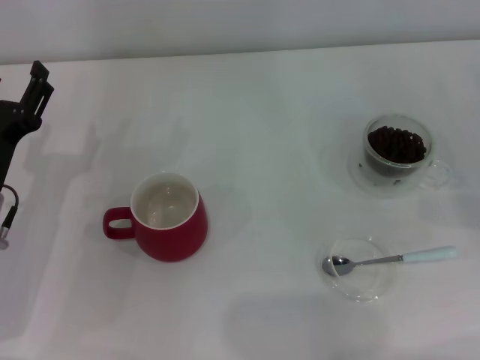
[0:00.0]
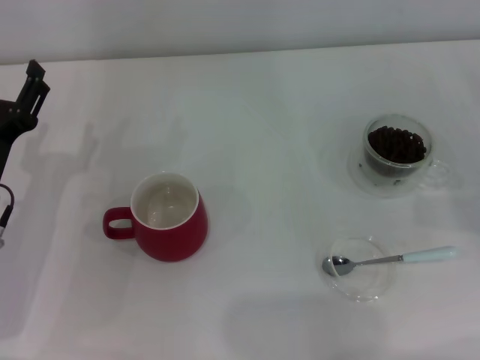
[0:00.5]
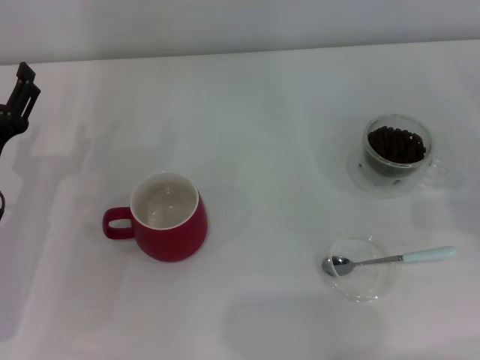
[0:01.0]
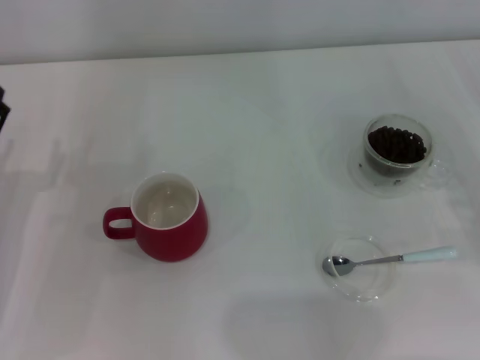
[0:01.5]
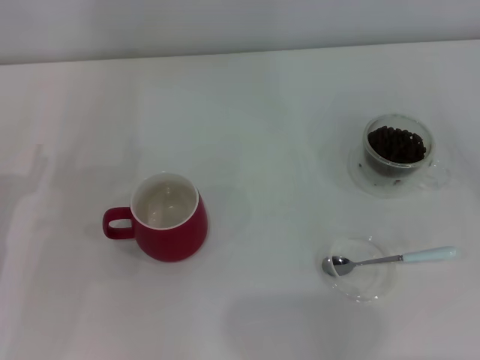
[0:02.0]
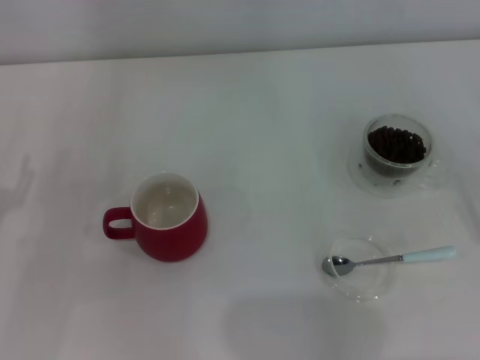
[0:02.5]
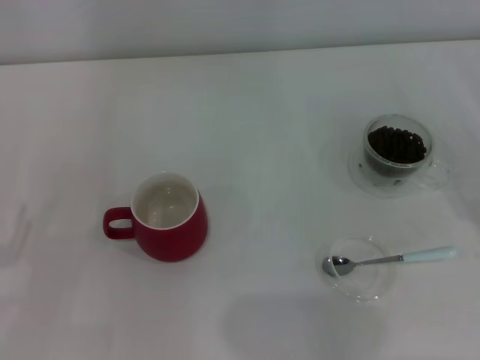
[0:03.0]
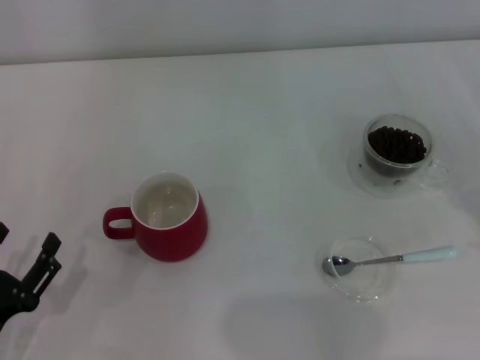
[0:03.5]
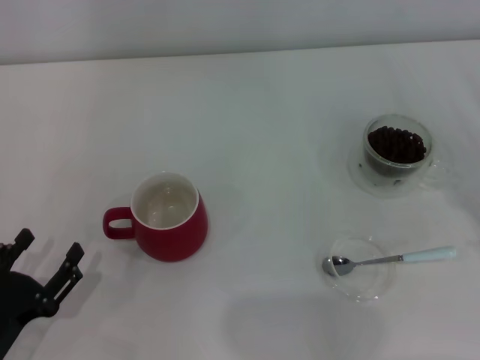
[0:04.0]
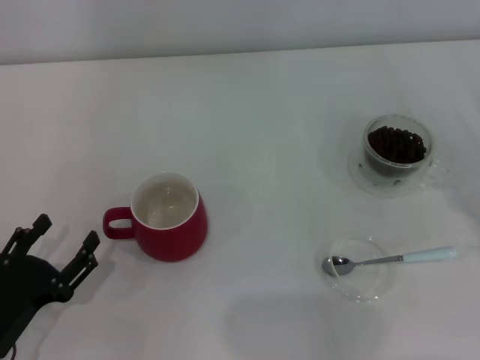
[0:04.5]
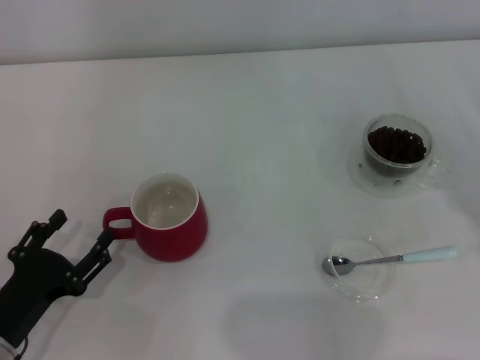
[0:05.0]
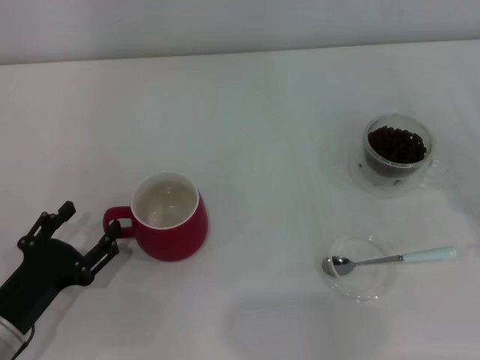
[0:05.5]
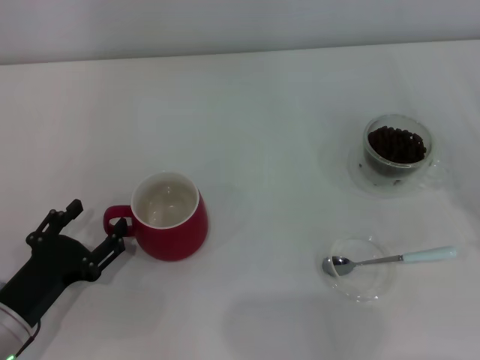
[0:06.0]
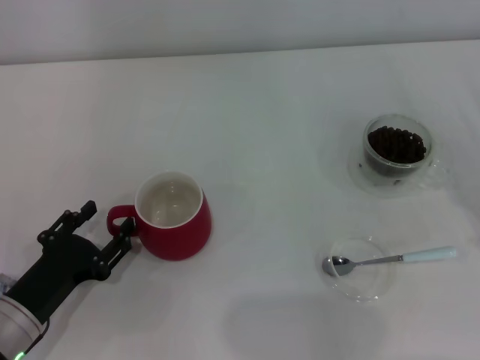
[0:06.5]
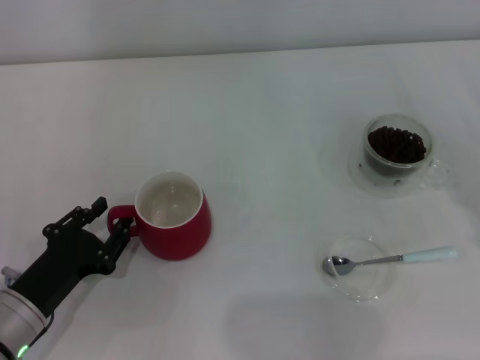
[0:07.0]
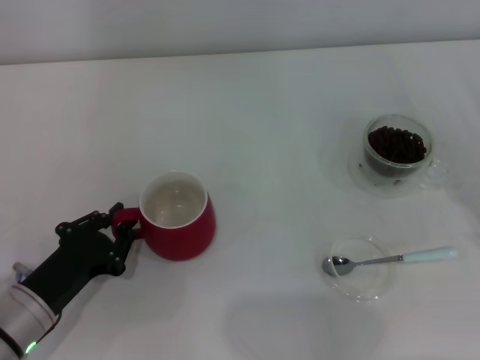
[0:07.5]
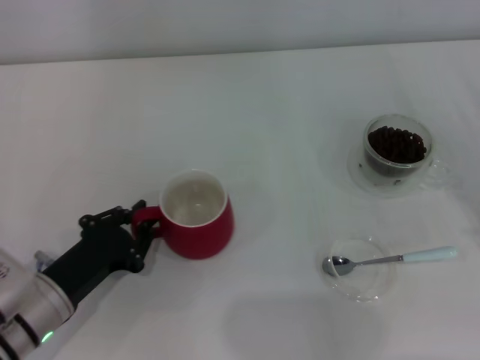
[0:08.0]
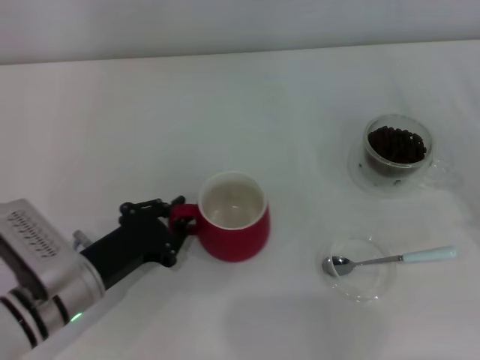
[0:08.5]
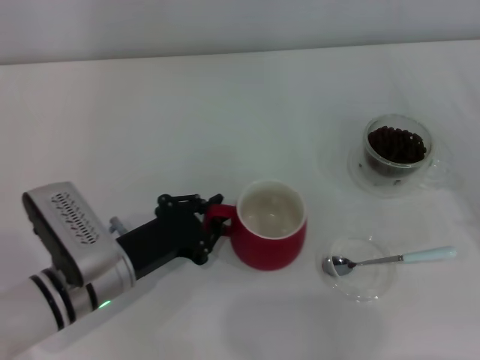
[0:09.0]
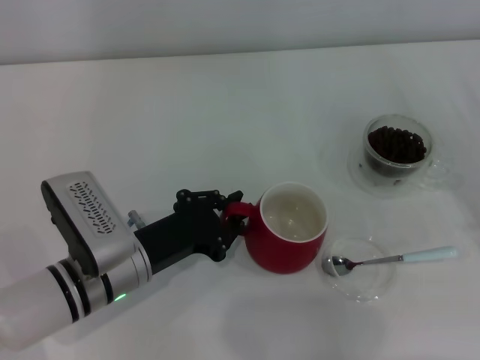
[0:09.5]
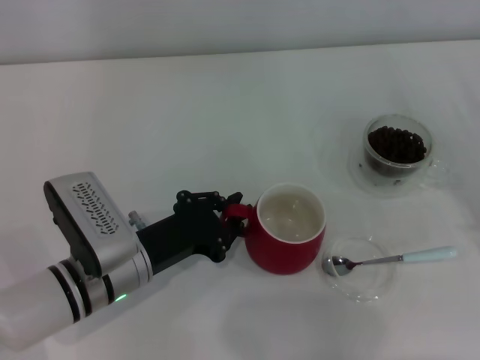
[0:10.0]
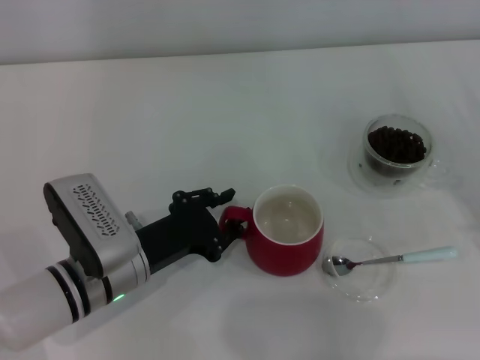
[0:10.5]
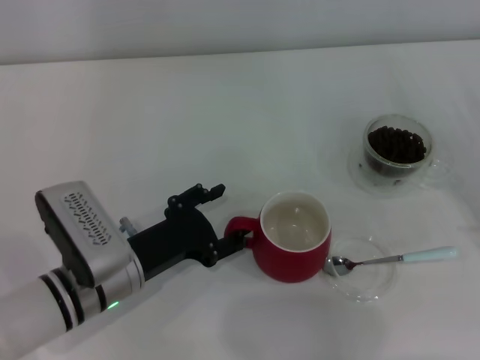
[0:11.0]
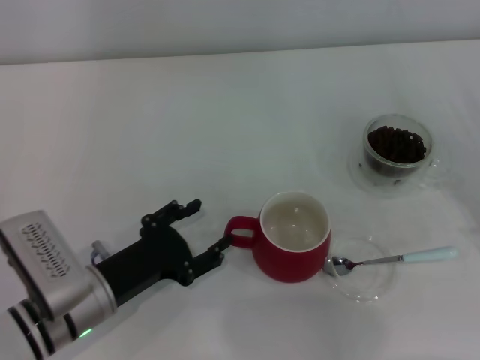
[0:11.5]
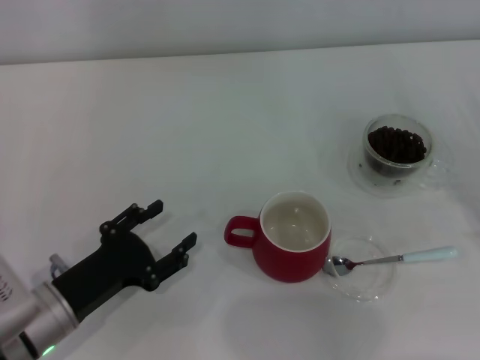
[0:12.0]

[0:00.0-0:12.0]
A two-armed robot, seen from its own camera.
Task of the whole recording: Use a blue spoon to take out the coffee beans from the glass and pour them into the red cup.
Step, 0.0 to 11.5 s: Move the cup to the center of view with the left gripper.
0.0 to 2.0 s: The left gripper is displaced to the left by about 5 cm.
2.0 to 4.0 s: The left gripper goes about 15 cm backward and downward.
4.0 to 6.0 s: The left gripper is displaced forward by approximately 5 cm.
6.0 to 8.0 s: The left gripper closes up.
8.0 to 10.0 s: The left gripper heads to the right, covering approximately 10 cm.
10.0 to 12.0 s: The left gripper heads to the left, covering approximately 5 cm, and opens.

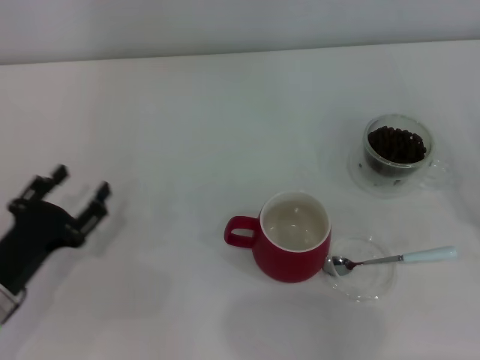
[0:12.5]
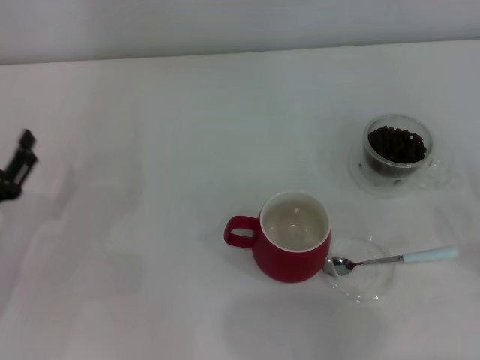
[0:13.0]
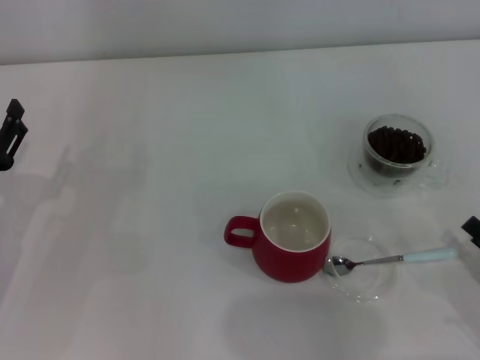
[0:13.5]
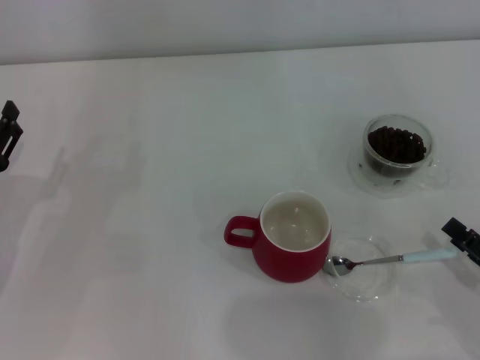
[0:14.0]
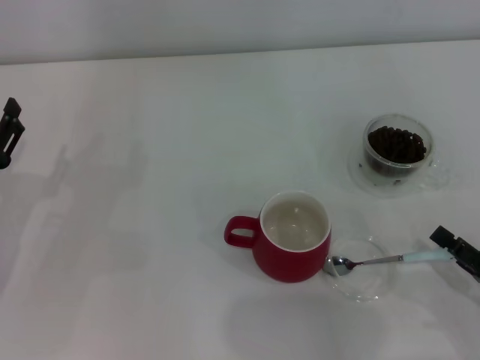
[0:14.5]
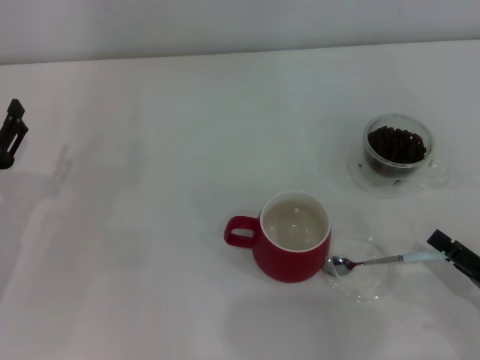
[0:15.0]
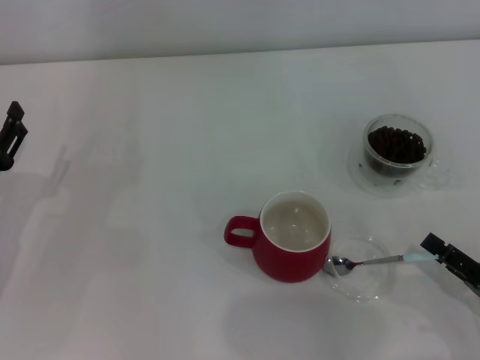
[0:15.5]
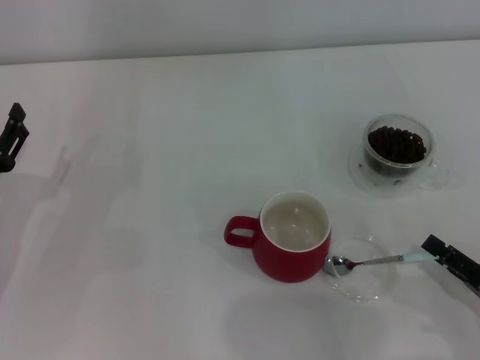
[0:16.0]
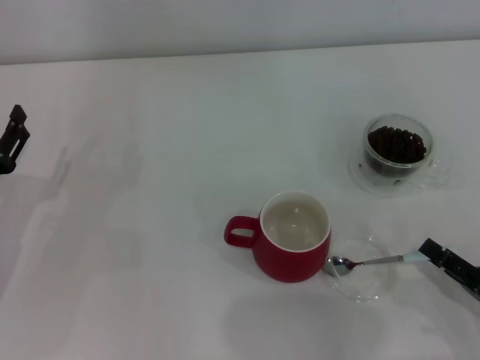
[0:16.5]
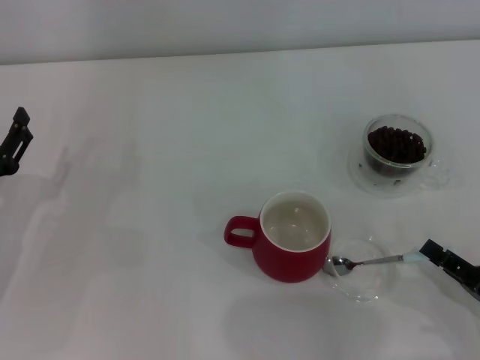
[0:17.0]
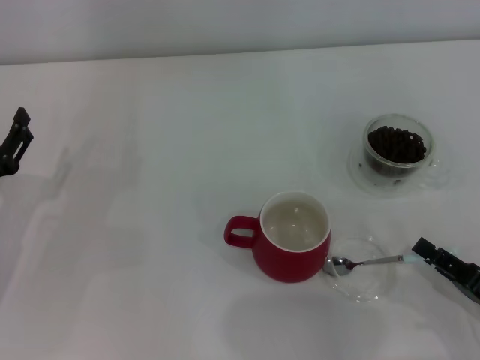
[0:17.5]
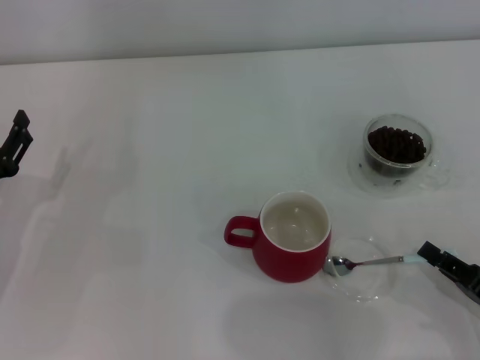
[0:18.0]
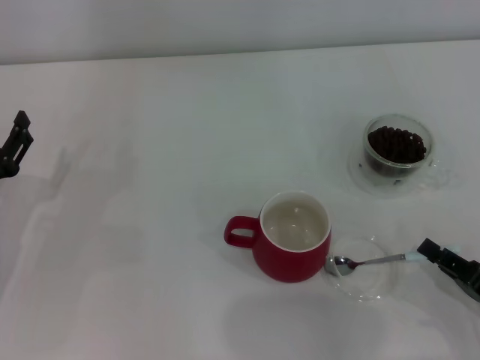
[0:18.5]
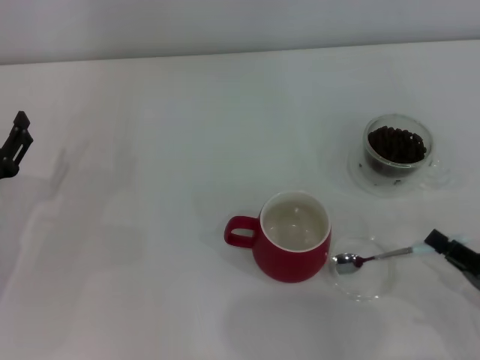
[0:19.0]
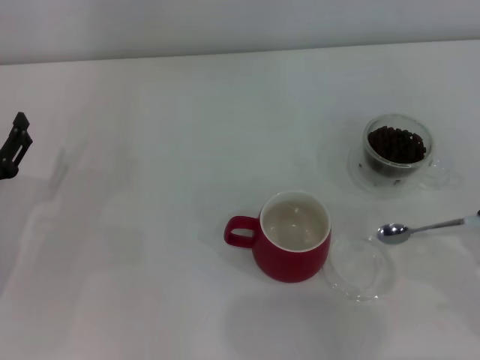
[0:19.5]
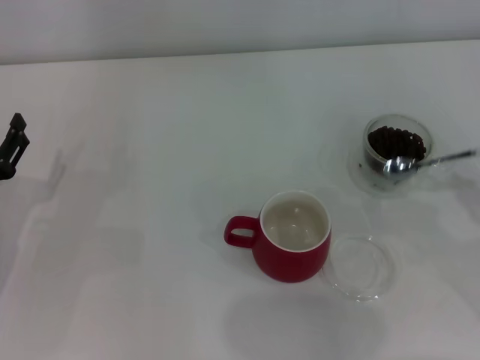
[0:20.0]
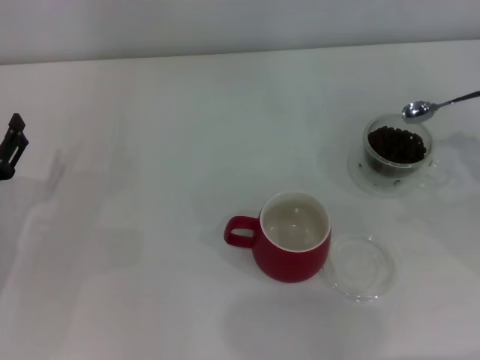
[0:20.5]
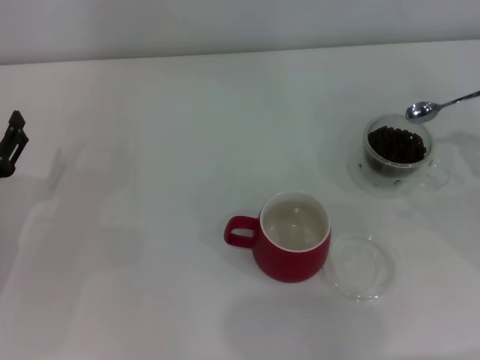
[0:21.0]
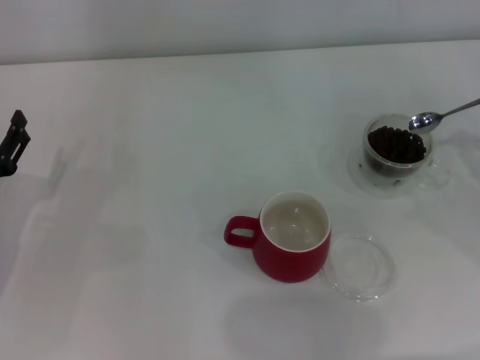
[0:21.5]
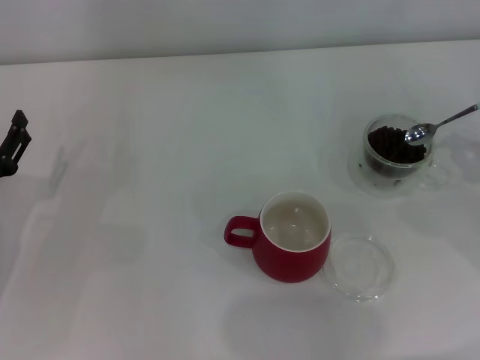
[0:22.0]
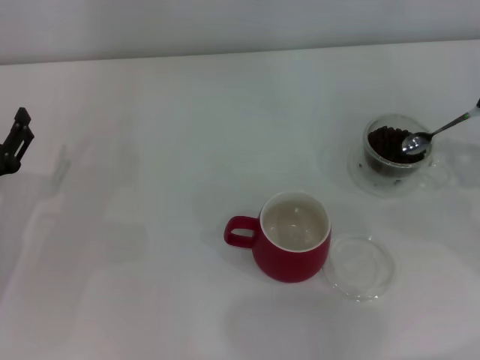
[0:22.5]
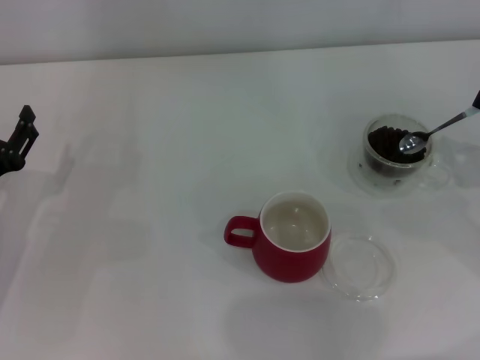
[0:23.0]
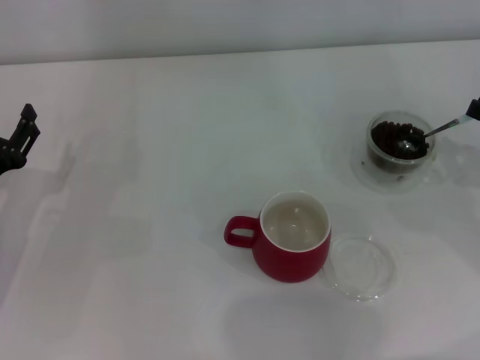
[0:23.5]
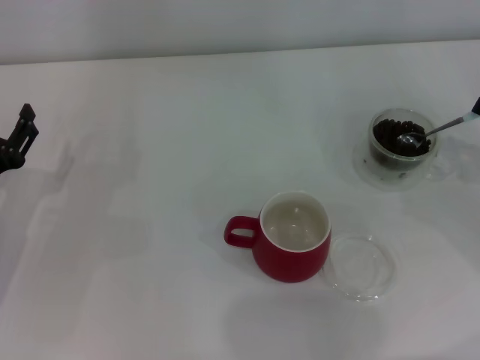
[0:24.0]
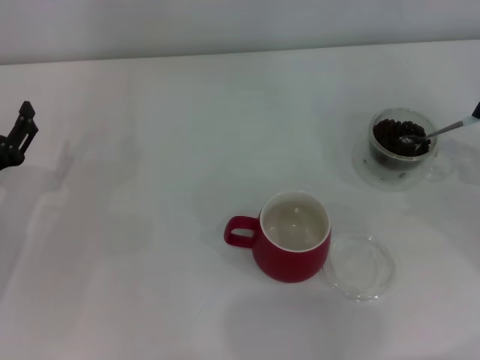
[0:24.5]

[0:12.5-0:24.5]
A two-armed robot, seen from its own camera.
Task of the whole recording: Use a blue spoon to take out the coffee beans from the glass and pour them into the red cup.
Step, 12.5 to 19.5 s: Pick up the spoon with the right gripper.
12.5 to 14.5 s: The left gripper shifts by roughly 5 cm, while the right gripper goes some 10 cm to the left.
14.5 to 16.5 s: Neither gripper changes place.
18.5 to 20.5 s: The right gripper is displaced forward, upward and to the right by about 15 cm.
22.5 to 24.5 s: The grippers make only small movements.

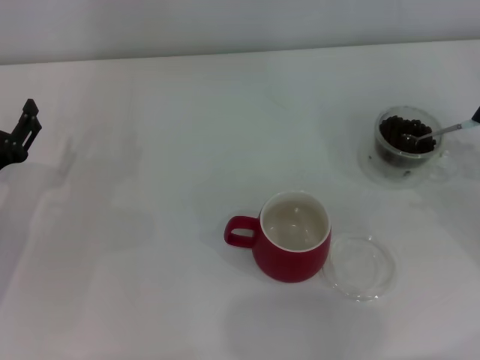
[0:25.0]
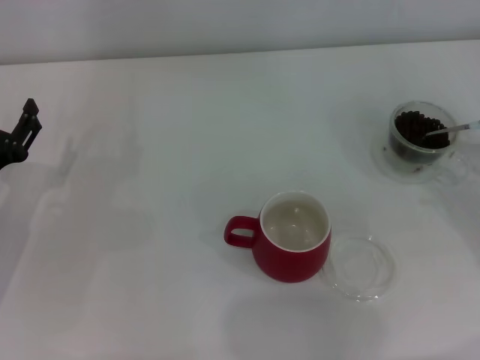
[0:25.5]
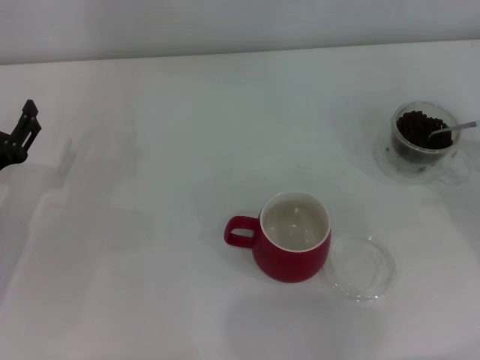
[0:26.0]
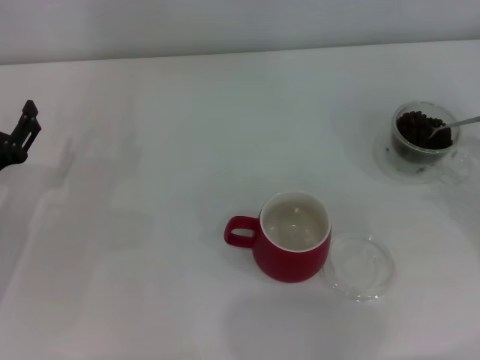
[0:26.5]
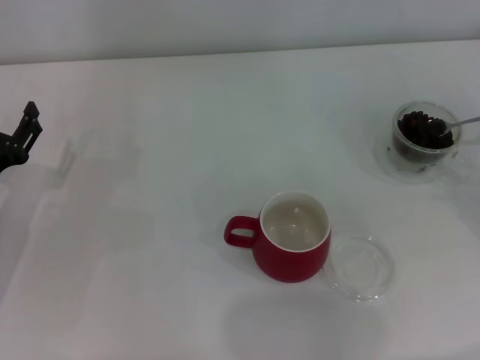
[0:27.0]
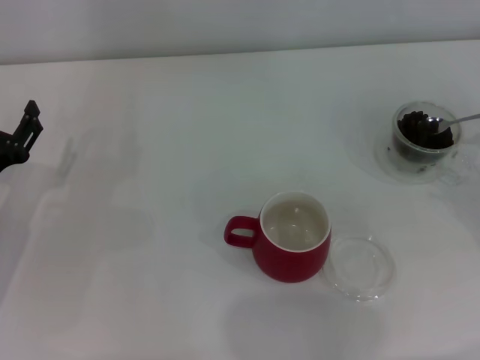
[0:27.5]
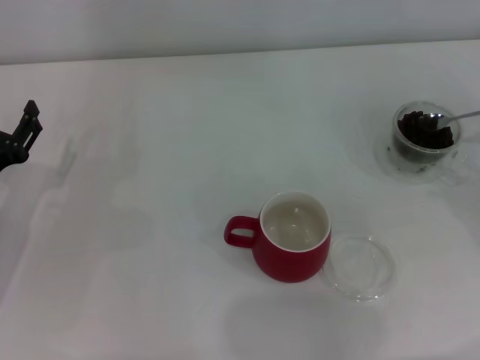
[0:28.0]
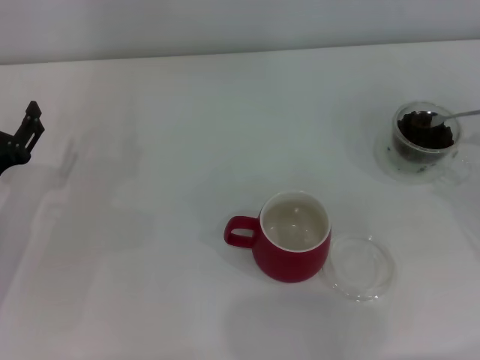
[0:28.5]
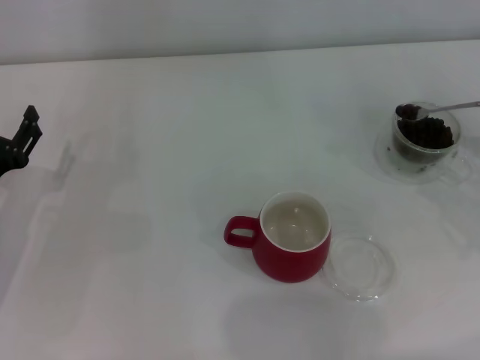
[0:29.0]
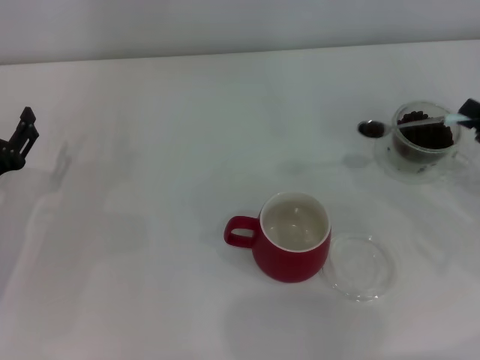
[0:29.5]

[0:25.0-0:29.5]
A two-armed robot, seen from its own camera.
Task of the whole recording: Use a blue spoon to take out the coffee beans from the glass and pour them into the red cup.
25.0 to 27.0 s: The grippers stay close to where they were, moving slightly.
